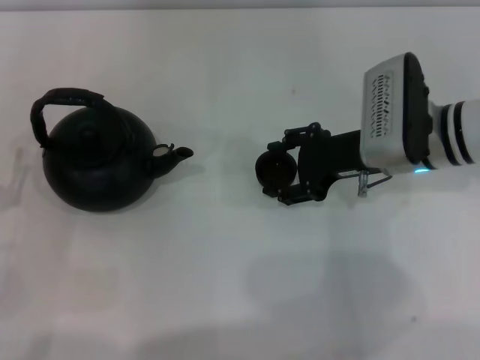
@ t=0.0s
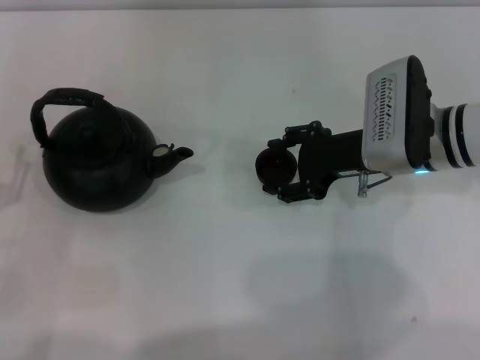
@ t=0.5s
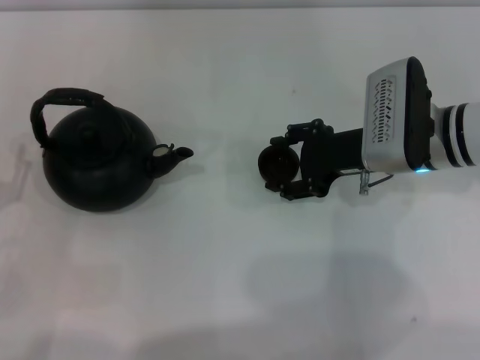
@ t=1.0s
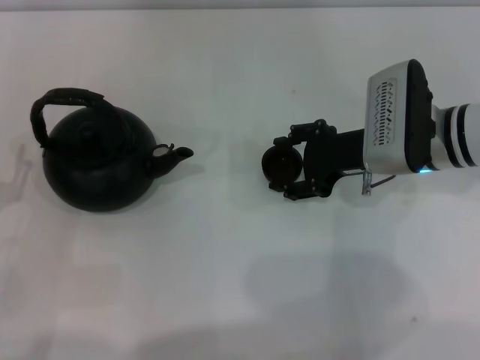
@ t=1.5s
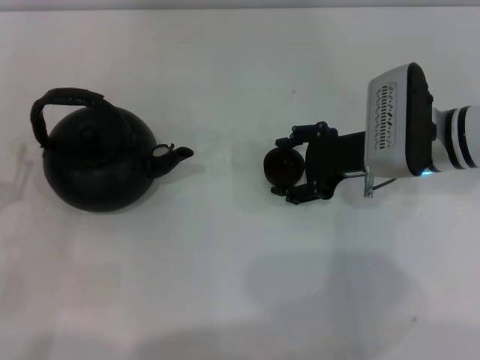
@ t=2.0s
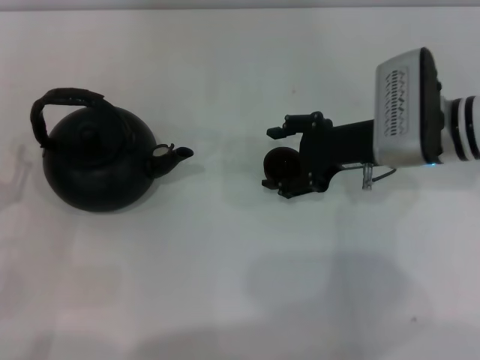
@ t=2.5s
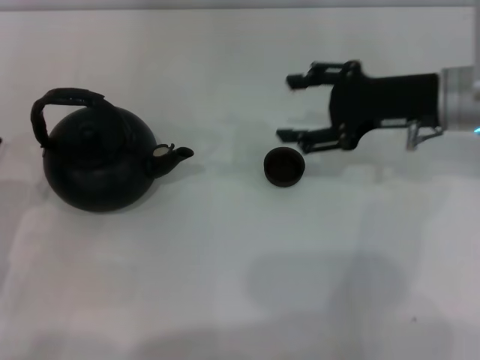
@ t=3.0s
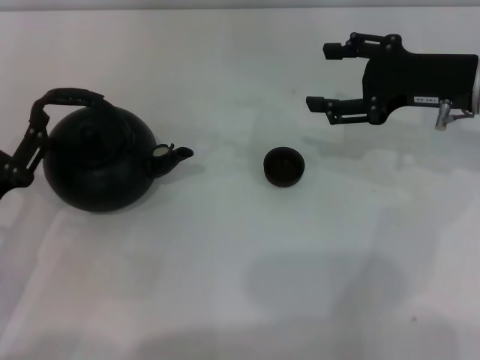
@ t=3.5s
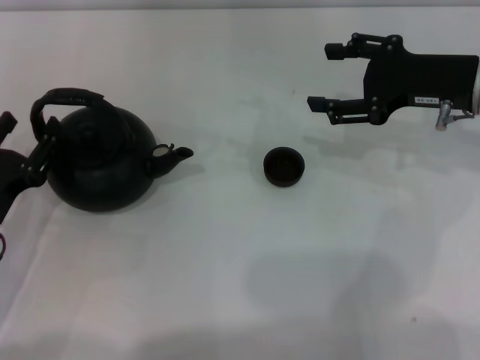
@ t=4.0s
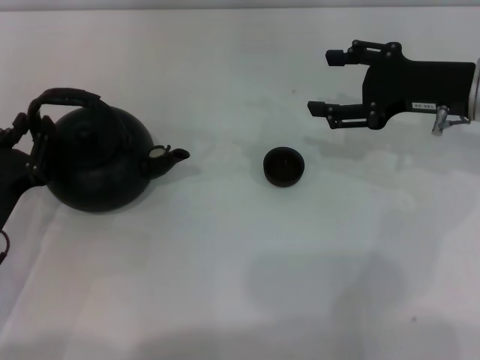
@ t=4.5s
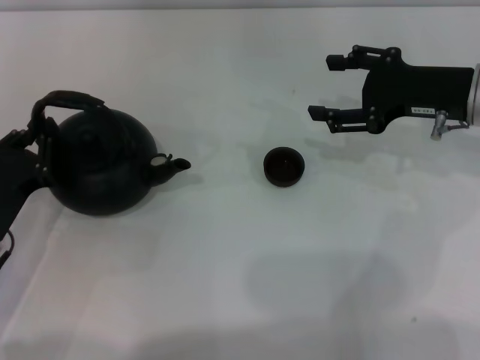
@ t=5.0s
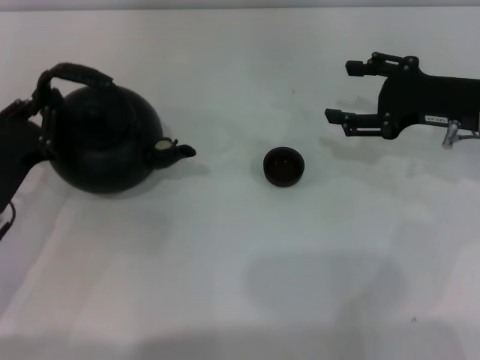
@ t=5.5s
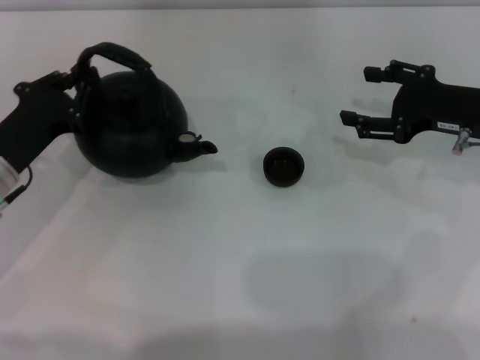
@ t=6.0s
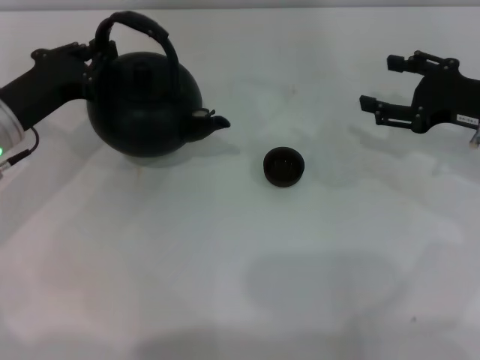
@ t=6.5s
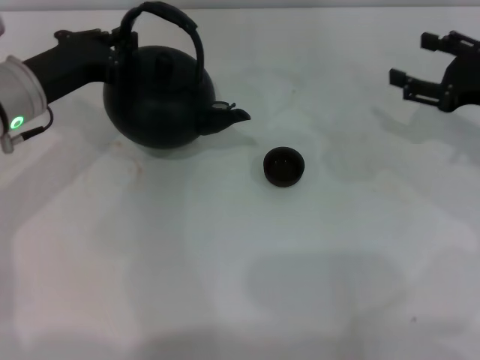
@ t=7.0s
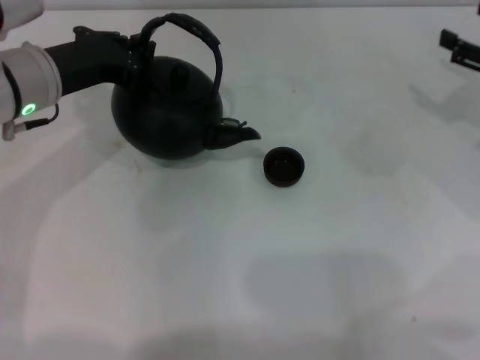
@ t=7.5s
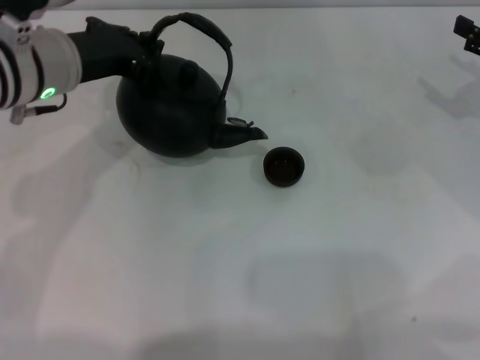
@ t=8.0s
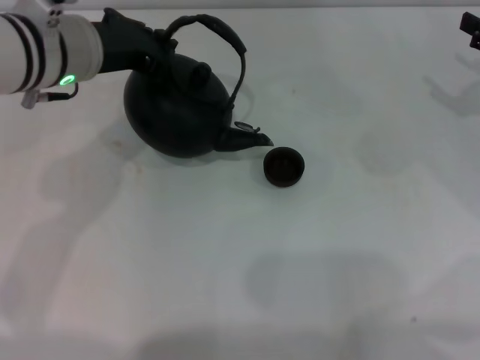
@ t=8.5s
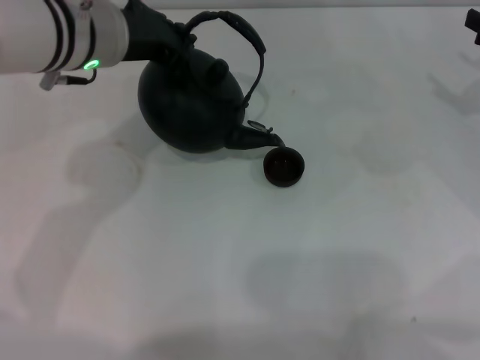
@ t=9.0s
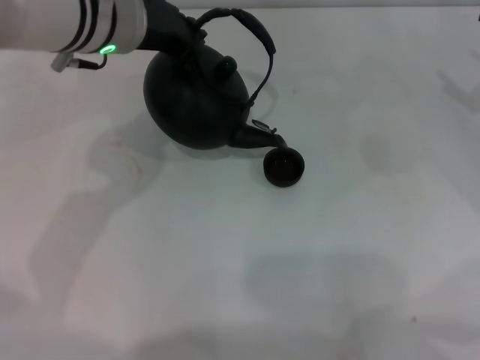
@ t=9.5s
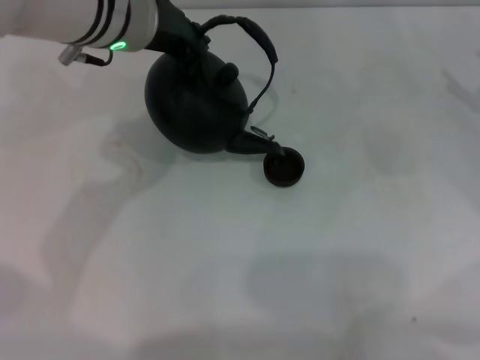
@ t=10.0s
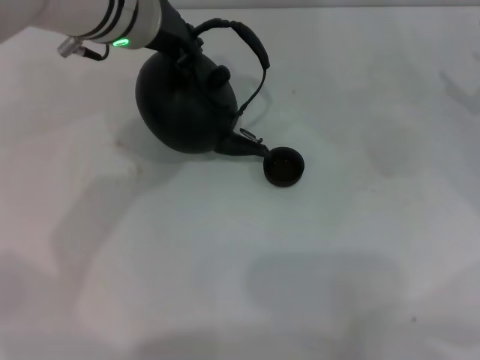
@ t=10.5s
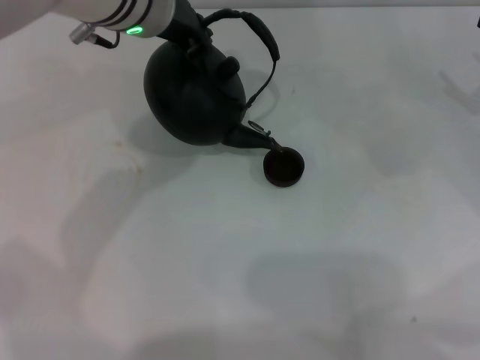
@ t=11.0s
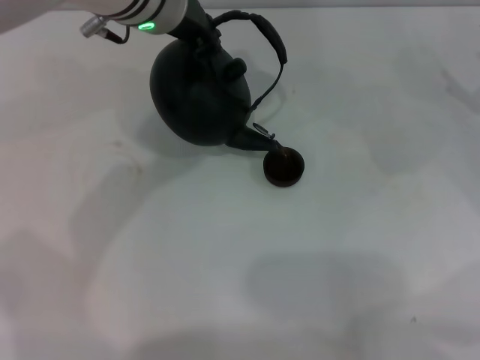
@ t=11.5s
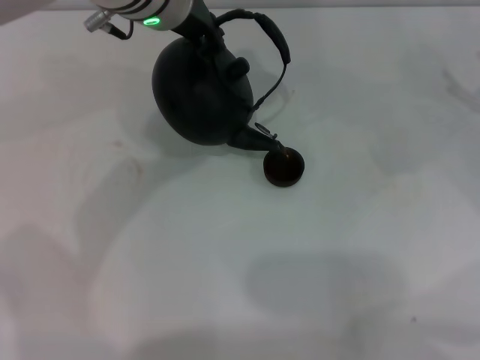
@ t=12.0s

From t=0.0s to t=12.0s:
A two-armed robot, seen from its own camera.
Task of the whole recording: Grasp the handle of the teapot with one hand and pour tea into the teacup.
Step, from t=0.0s to t=3.0s: Place the teacup in the center of view with the right gripper.
Step, from t=3.5s to t=5.5s: Pick up the teapot with the left gripper.
From t=0.0s to t=2.0s: The right gripper opens its fingers.
From t=2.0s to t=4.0s: The right gripper is displaced to the right and upward by some 10 cm, and opens its fingers.
From t=4.0s to t=6.0s: The right gripper ends up about 5 cm from where it was. The left gripper travels forward by roughly 10 cm, and closes.
From t=6.0s to t=8.0s: The left gripper heads upward, to the right and forward, covering roughly 15 cm. Meanwhile the right gripper moves to the right, some 10 cm.
From t=8.0s to t=10.0s: The left gripper is displaced to the right by roughly 10 cm.
From t=10.0s to t=12.0s: The grippers stay close to where they were, moving slightly.

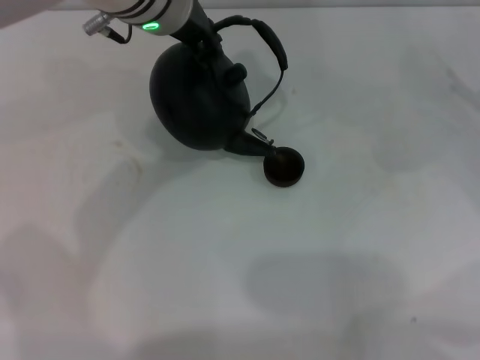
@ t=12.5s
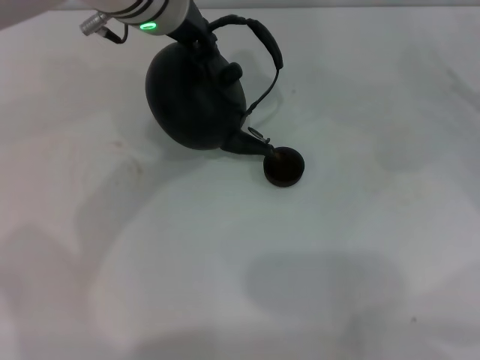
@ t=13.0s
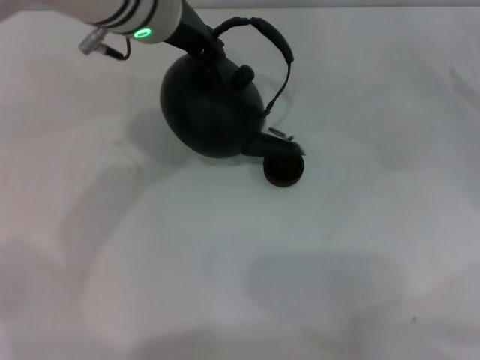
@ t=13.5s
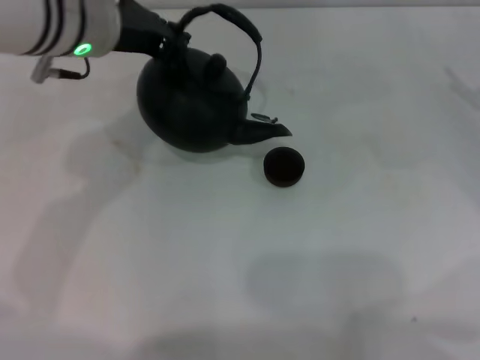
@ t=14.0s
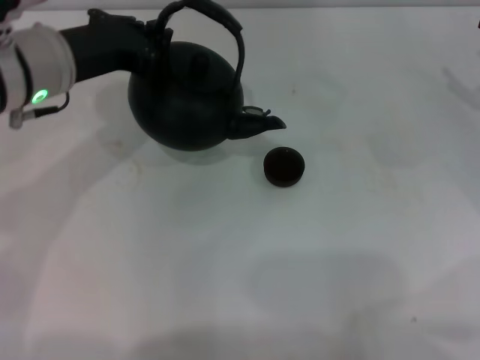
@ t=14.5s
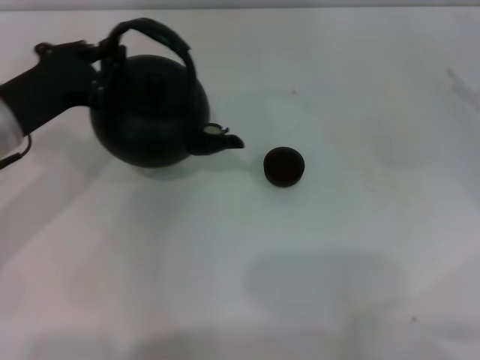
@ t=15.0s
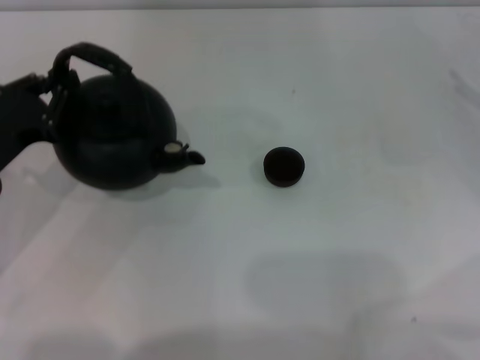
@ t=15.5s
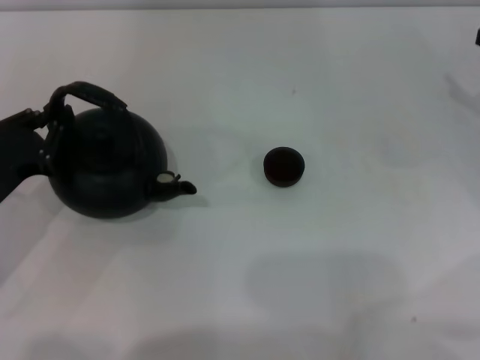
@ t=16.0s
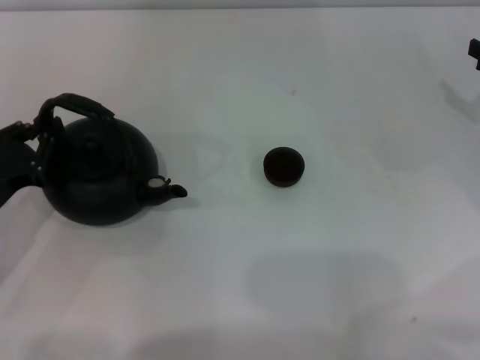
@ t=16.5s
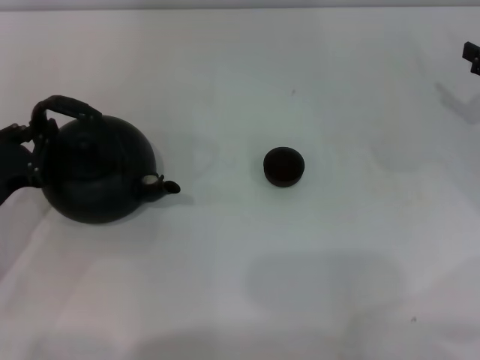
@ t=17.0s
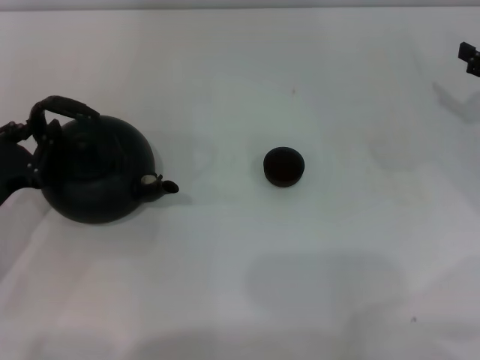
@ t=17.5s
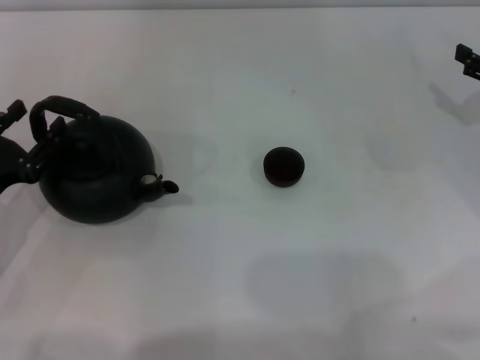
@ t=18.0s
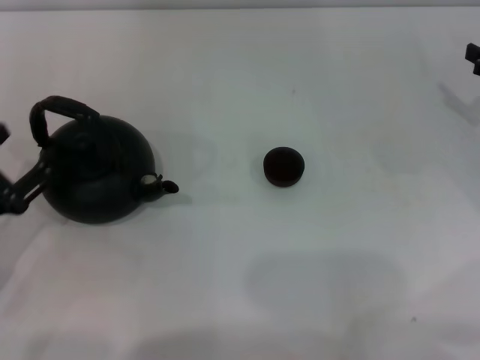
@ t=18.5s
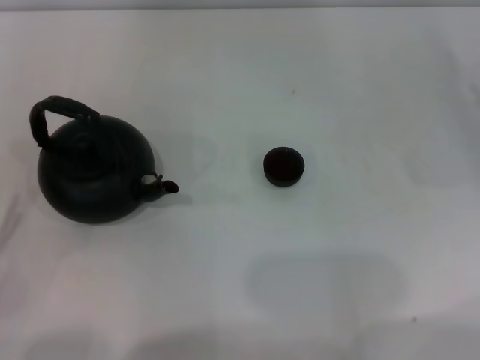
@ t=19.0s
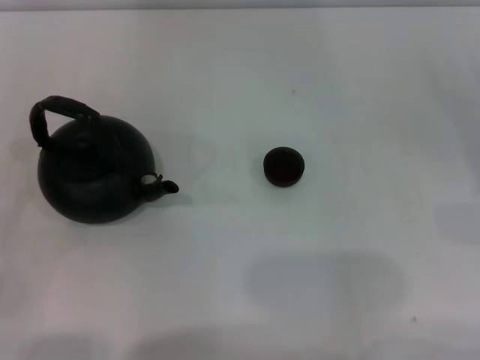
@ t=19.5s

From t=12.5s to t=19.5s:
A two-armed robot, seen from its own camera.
Task of the whole recording: Grasp the handle of the teapot with one hand and pour tea into the teacup.
Step, from t=14.5s to t=18.5s: Put down the teapot with the left gripper.
From t=12.5s to t=14.5s: The left gripper moves to the left and downward, about 15 cm.
From t=14.5s to t=16.0s: The left gripper is displaced downward, backward and to the left by some 20 cm.
From t=16.0s to t=17.5s: The grippers stay close to where they were, moving slightly.
From t=17.5s to t=19.5s: The left gripper shifts approximately 10 cm backward, and opens up.
